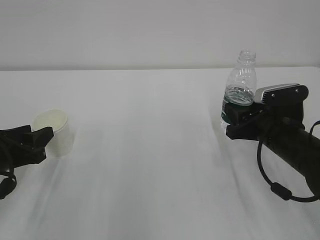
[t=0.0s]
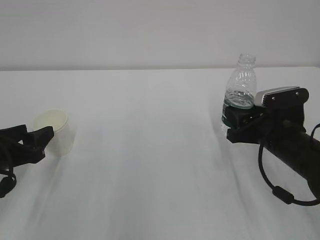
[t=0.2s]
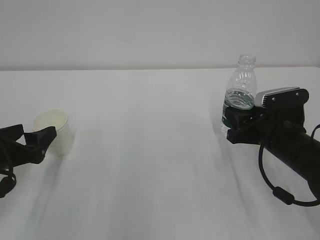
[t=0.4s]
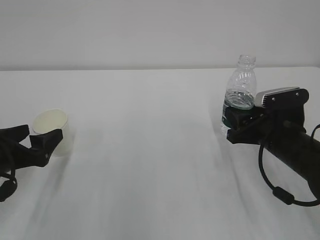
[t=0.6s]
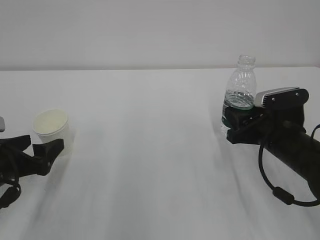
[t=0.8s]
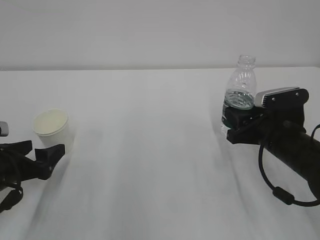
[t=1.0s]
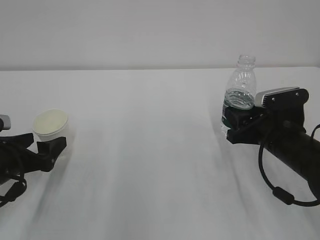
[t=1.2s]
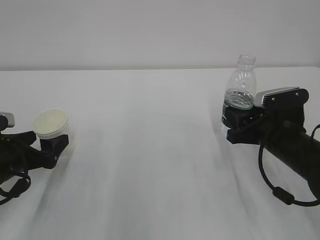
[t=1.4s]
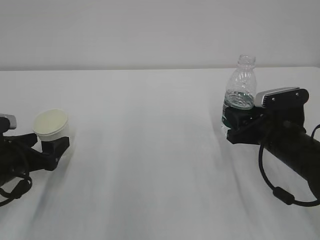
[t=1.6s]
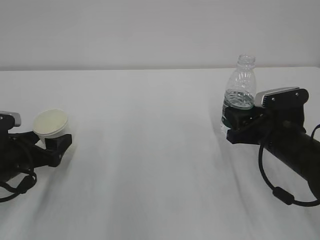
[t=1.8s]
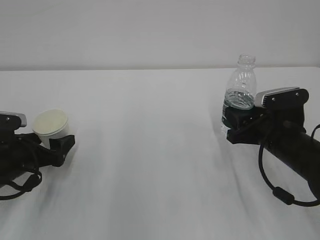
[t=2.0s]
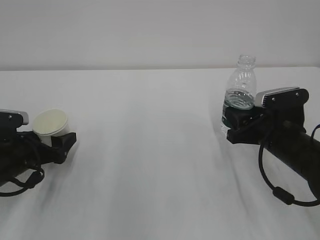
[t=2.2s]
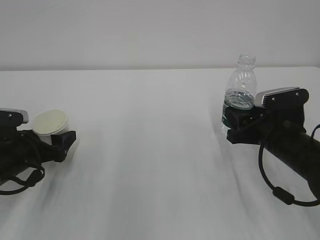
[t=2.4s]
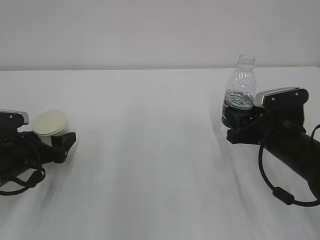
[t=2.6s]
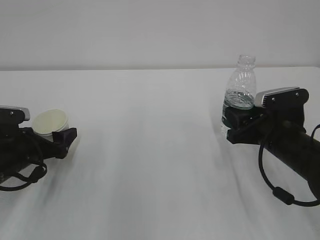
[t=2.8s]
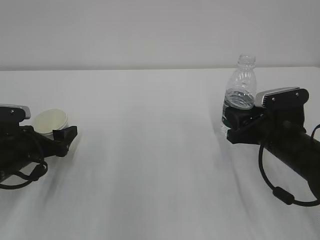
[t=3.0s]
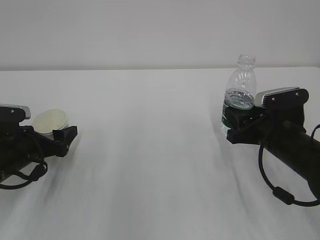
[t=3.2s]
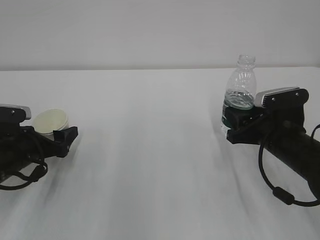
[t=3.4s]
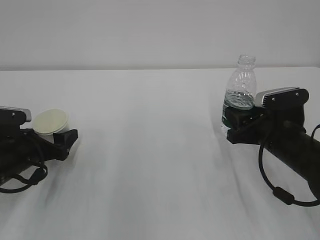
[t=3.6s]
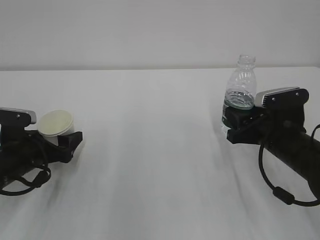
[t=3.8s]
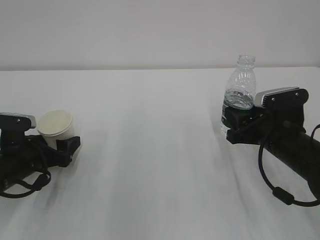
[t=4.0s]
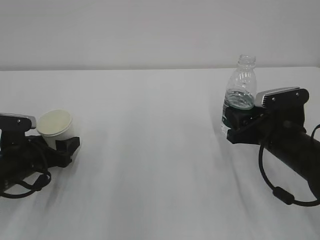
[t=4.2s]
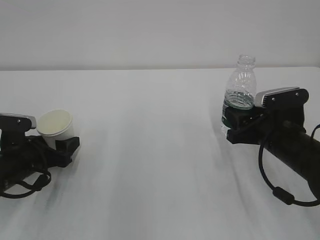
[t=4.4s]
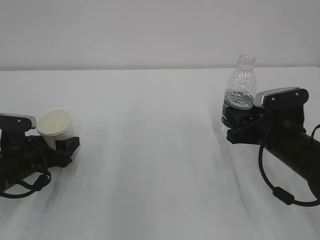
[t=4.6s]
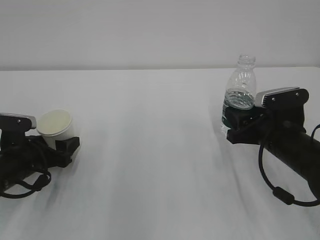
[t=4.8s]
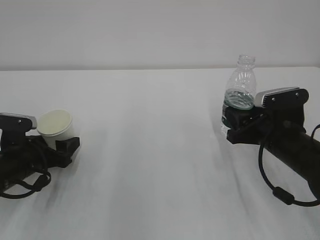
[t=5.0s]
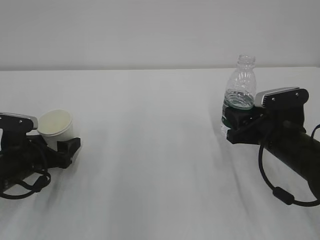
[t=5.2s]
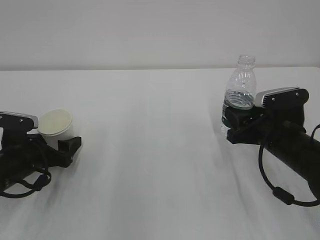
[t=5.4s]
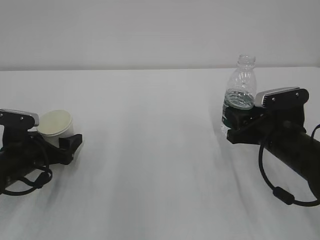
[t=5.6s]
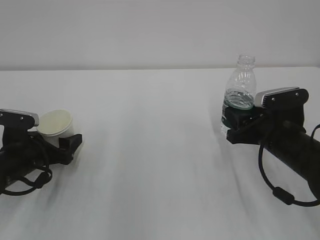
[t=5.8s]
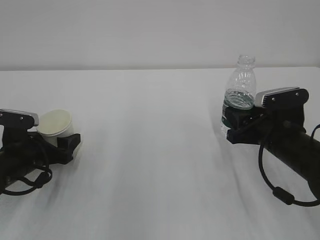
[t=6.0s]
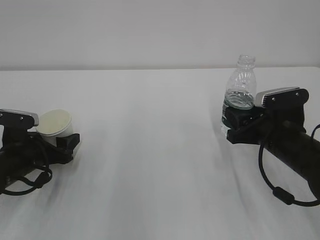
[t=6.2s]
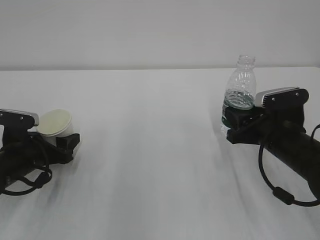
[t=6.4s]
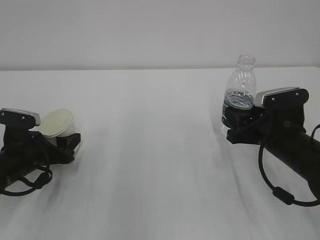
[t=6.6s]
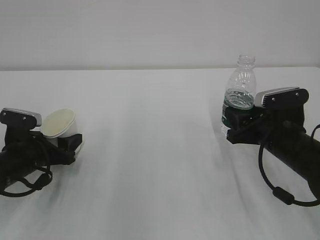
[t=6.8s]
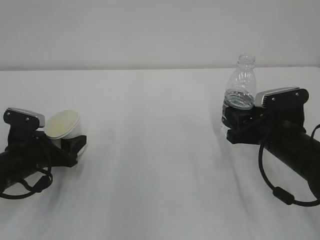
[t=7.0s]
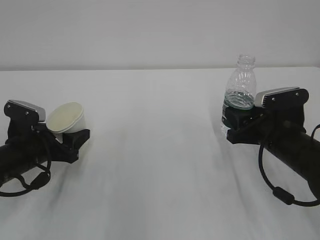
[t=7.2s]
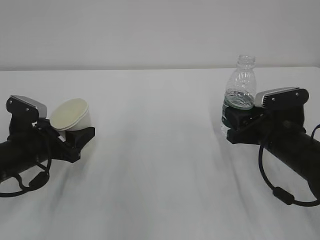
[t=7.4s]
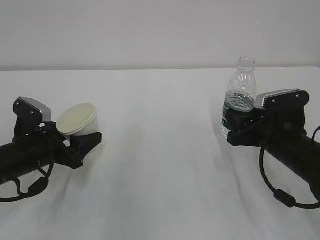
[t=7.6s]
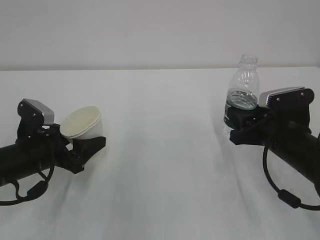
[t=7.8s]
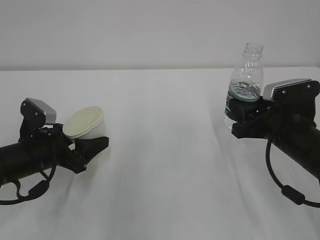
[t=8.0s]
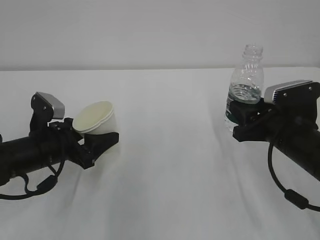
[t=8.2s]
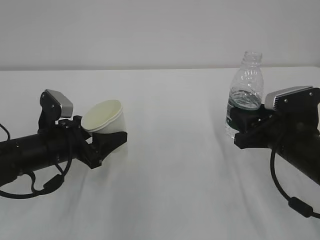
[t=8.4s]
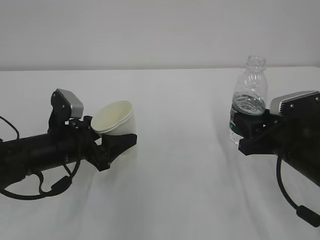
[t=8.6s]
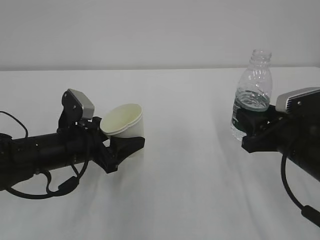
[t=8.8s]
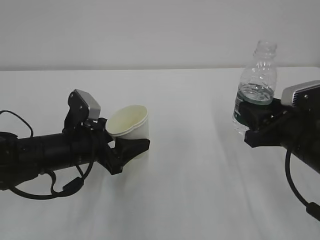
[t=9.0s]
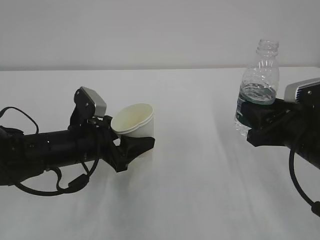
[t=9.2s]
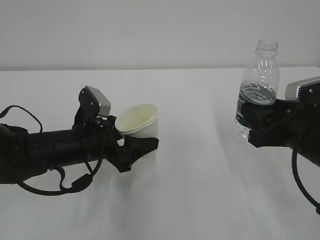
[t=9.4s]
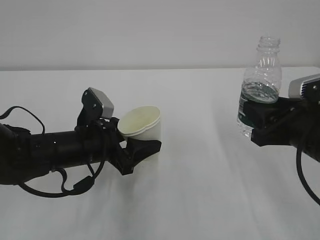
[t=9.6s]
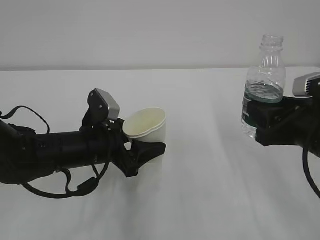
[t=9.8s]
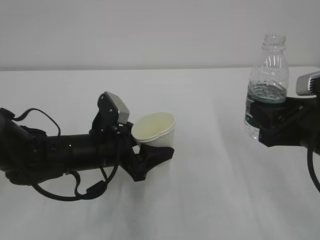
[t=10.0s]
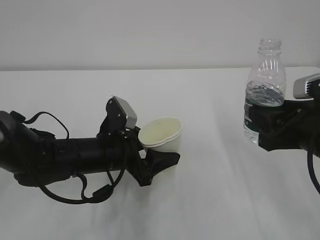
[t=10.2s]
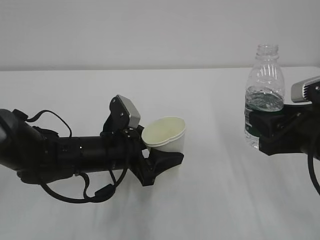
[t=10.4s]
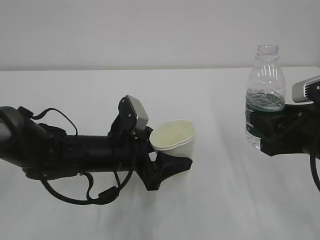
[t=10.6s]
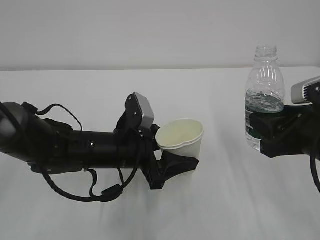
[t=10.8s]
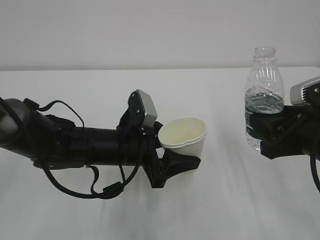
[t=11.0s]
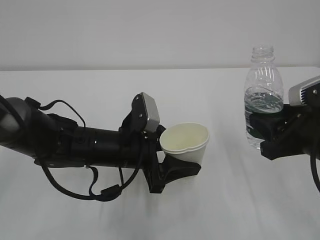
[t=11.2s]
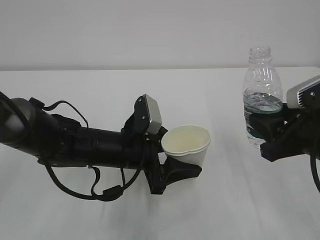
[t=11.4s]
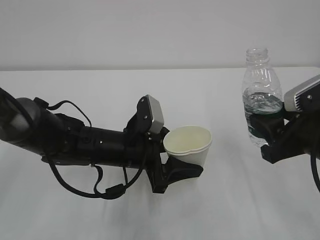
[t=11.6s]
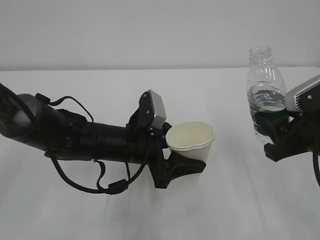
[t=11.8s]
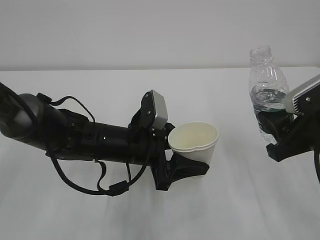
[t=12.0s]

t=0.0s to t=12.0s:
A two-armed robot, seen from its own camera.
t=0.0s to t=1.6s: The left gripper opens its fingers.
t=1.6s to t=4.4s: The grippers stay close to where they were, moving slightly.
t=4.4s to t=6.0s: Both grippers stay put.
t=7.6s to t=9.0s: The left gripper travels to the right by about 10 cm. The right gripper shifts by some 5 cm.
t=9.0s to t=10.4s: The left gripper travels to the right by about 5 cm.
t=10.4s to t=12.0s: The grippers stay close to where they were, moving slightly.

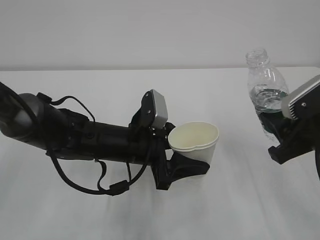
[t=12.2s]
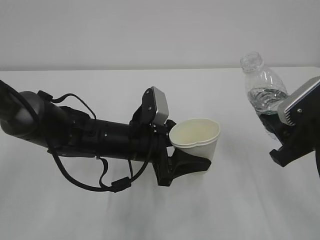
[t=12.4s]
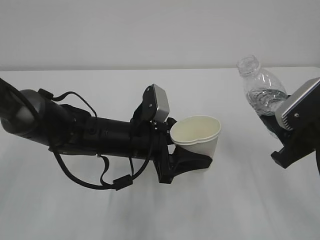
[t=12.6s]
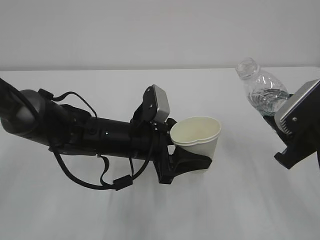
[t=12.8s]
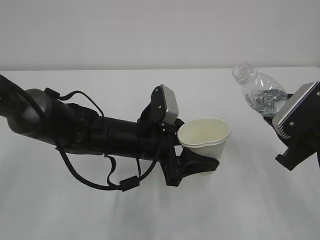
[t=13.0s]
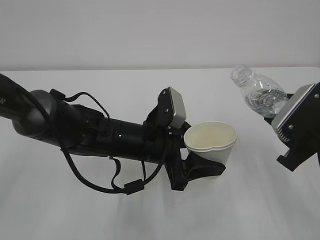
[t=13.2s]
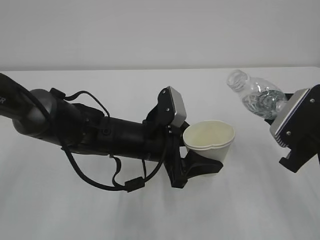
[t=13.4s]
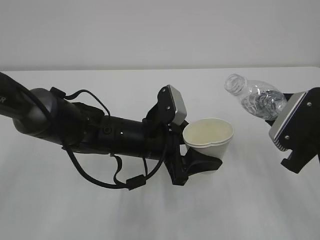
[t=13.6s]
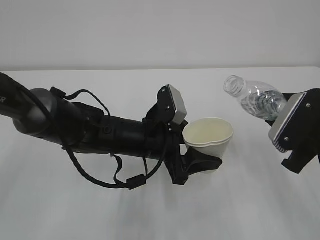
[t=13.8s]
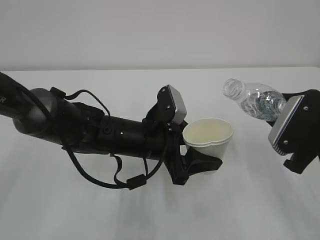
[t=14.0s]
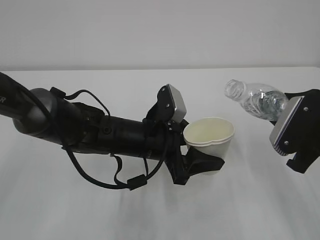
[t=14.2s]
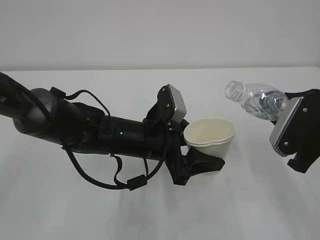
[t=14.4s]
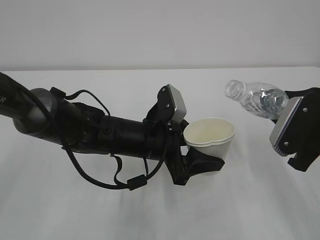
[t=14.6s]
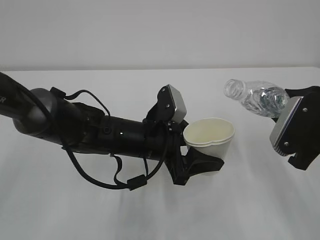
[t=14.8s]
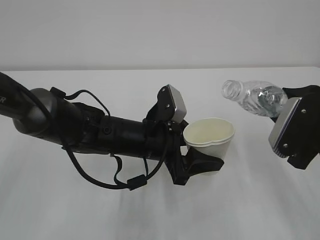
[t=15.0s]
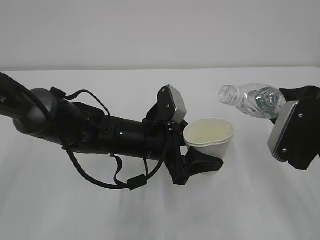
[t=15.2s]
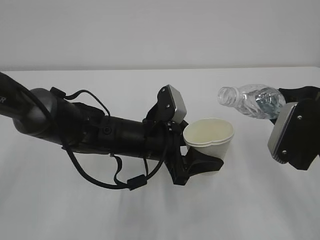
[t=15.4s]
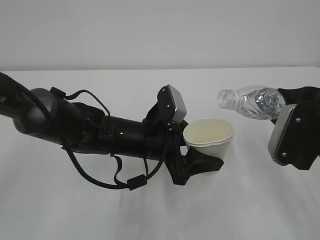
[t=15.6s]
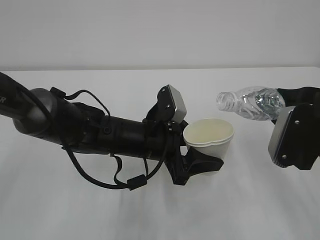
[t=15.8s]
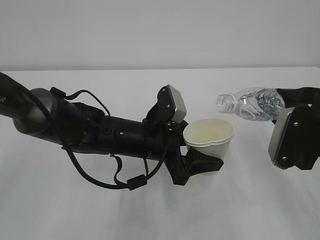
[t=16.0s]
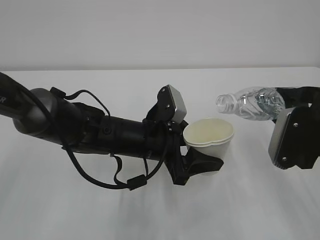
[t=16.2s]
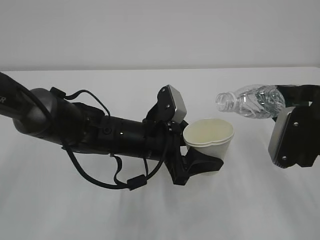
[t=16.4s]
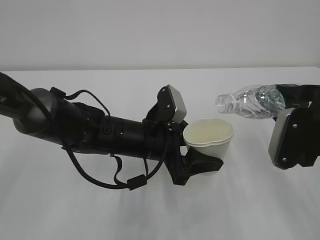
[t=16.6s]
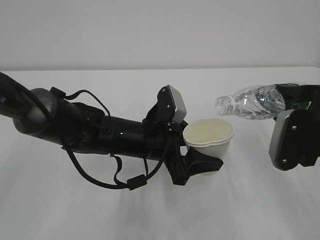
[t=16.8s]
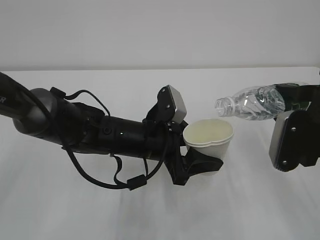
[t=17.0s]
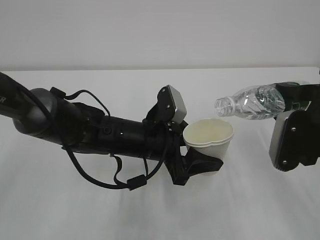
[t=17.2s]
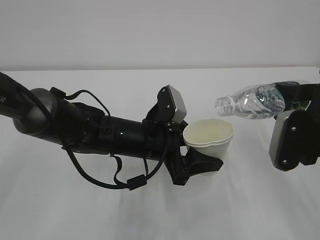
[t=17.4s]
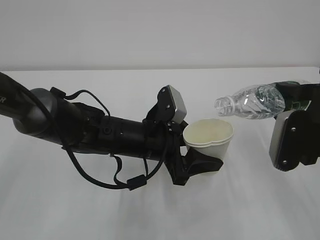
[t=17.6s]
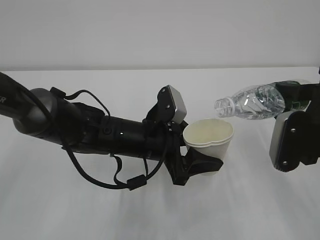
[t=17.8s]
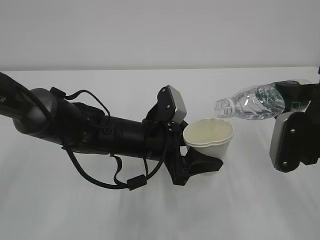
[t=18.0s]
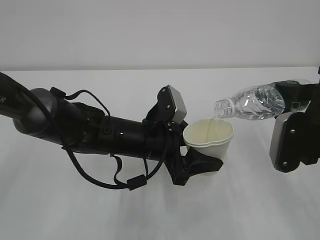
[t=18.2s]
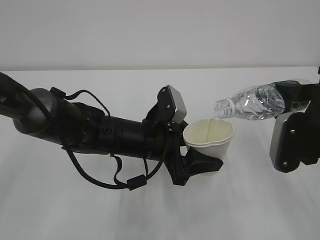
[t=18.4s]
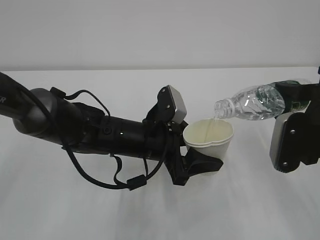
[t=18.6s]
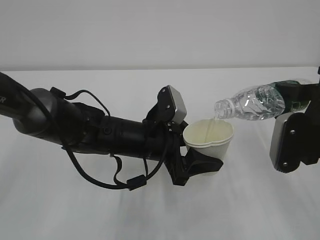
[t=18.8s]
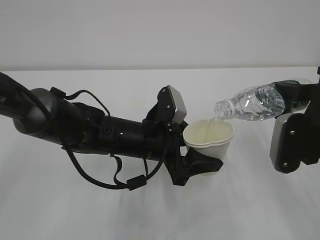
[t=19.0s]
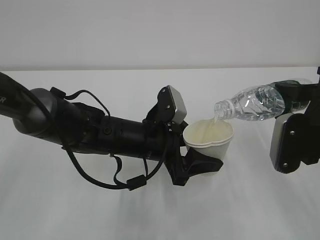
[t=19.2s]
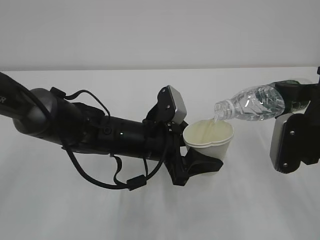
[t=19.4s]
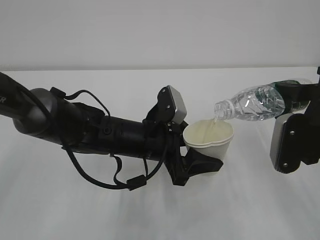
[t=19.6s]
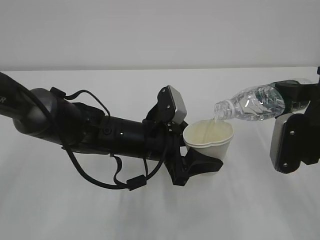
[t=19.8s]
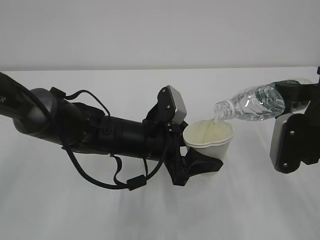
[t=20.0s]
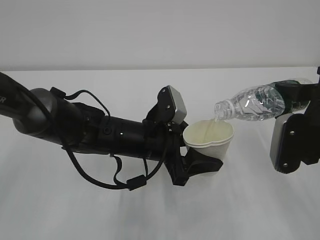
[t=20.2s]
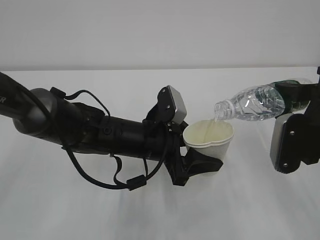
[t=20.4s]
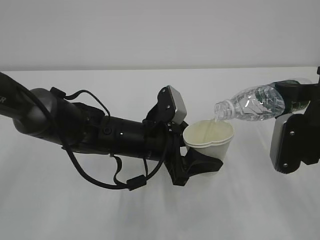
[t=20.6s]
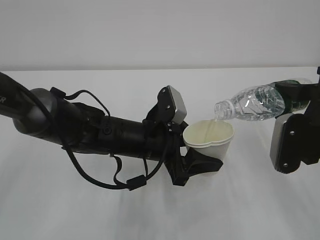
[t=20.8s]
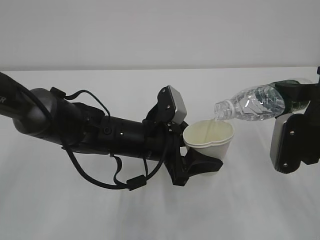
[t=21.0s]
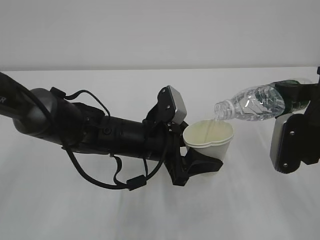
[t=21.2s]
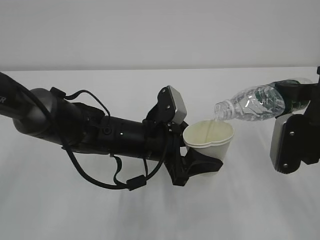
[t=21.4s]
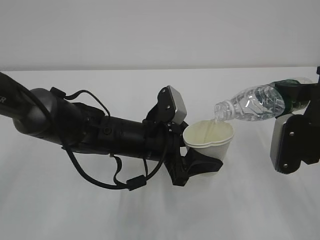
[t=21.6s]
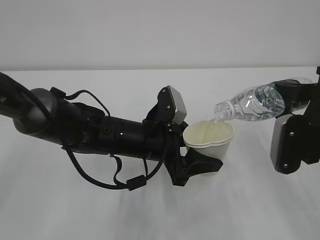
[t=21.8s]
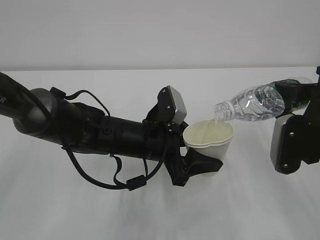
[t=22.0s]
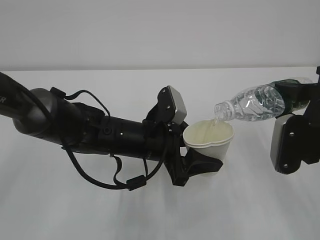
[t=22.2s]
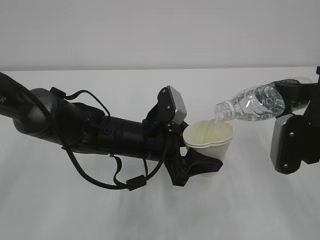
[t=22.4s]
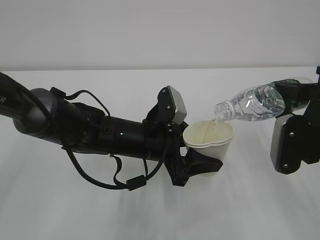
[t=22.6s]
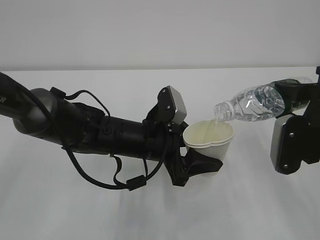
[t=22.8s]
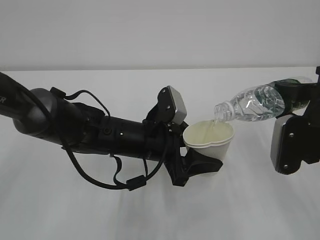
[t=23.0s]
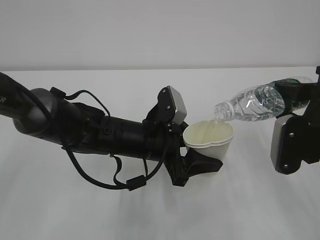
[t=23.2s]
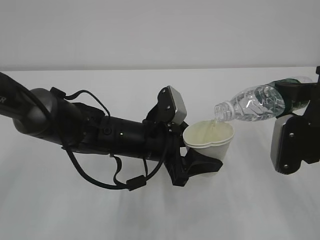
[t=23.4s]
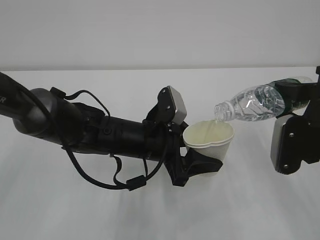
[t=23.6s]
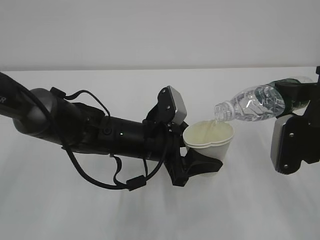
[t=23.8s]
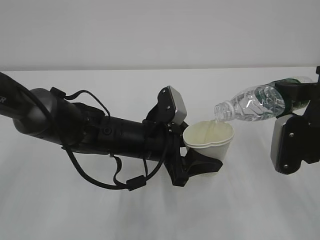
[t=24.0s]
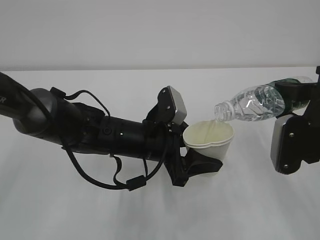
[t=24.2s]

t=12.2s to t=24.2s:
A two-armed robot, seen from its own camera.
t=13.8s to t=15.2s: The grippers move only a little.
t=15.2s to t=18.2s: There are only small adjustments of the grippers.
t=18.2s to t=24.2s: Both grippers stay about where they are.
